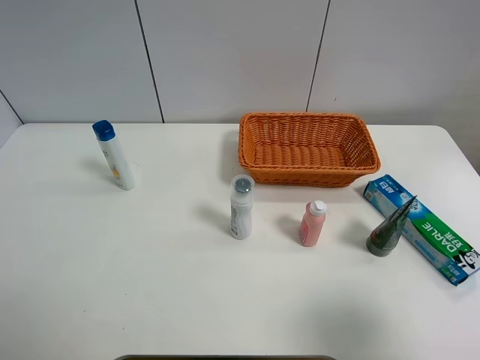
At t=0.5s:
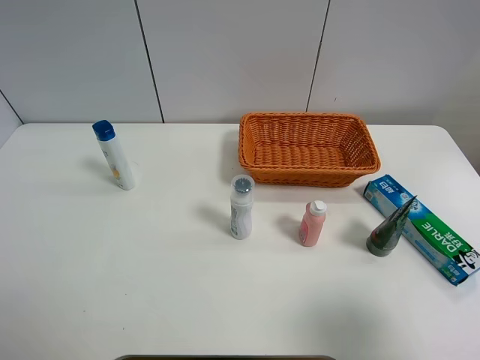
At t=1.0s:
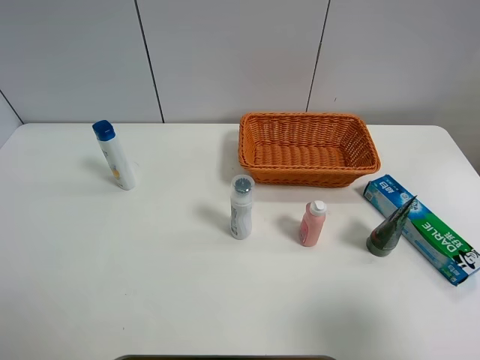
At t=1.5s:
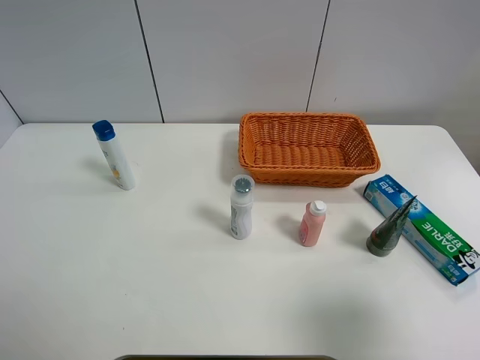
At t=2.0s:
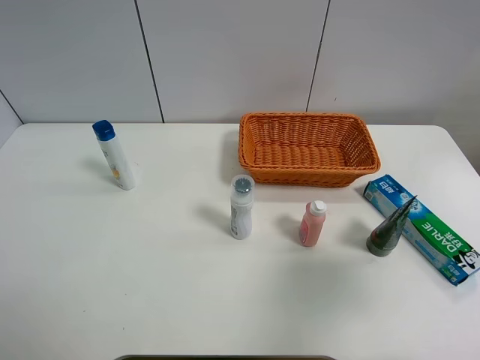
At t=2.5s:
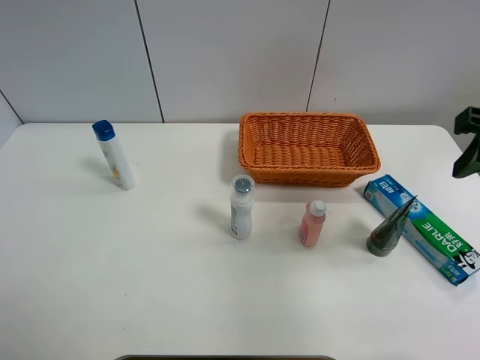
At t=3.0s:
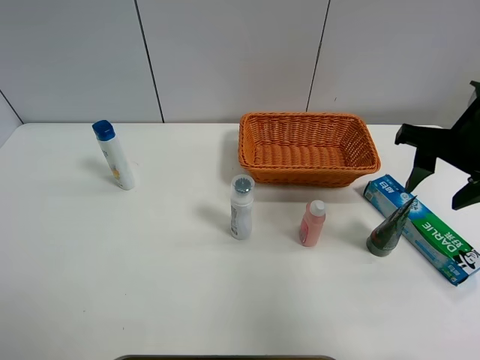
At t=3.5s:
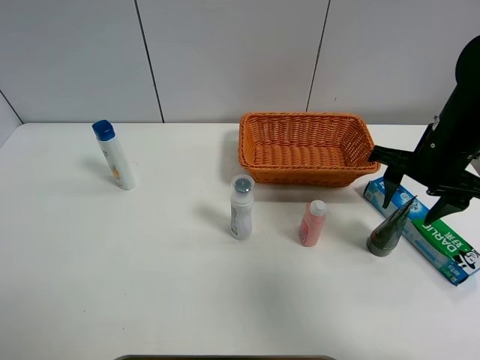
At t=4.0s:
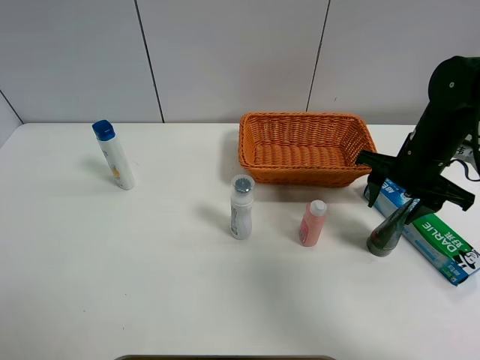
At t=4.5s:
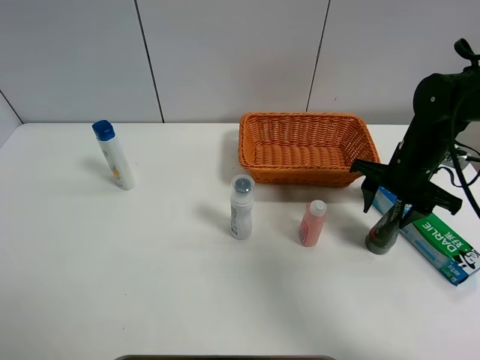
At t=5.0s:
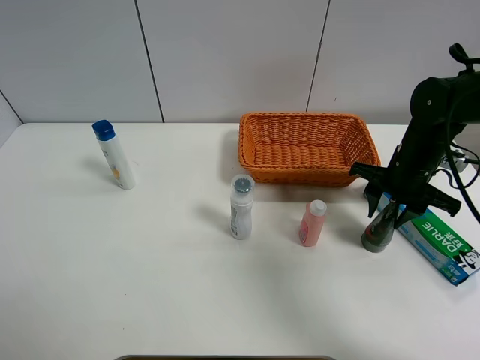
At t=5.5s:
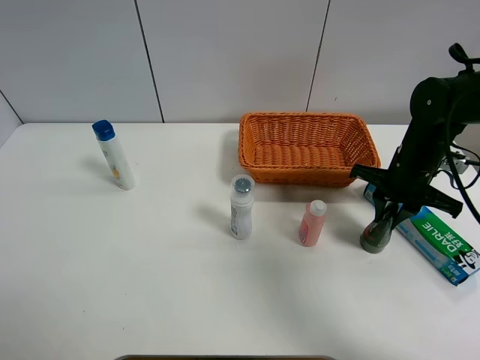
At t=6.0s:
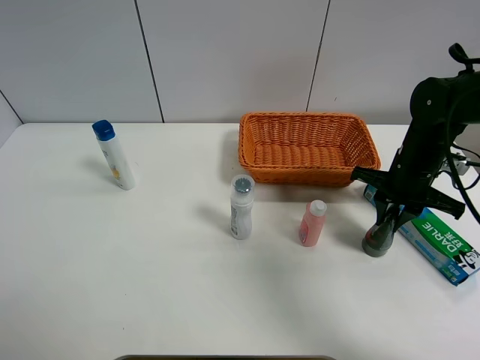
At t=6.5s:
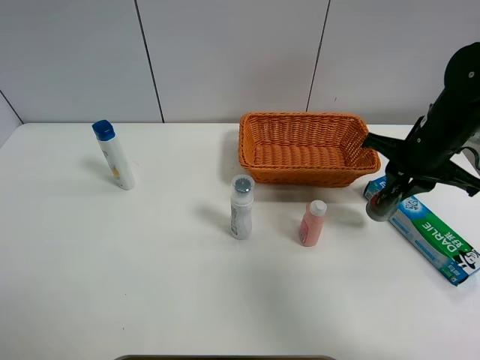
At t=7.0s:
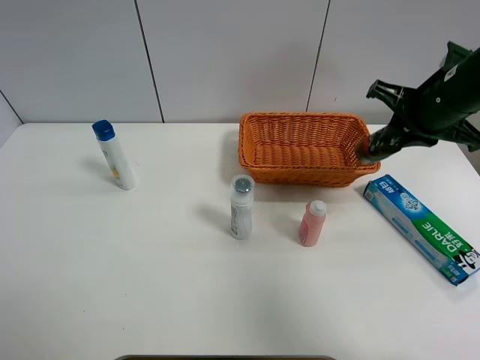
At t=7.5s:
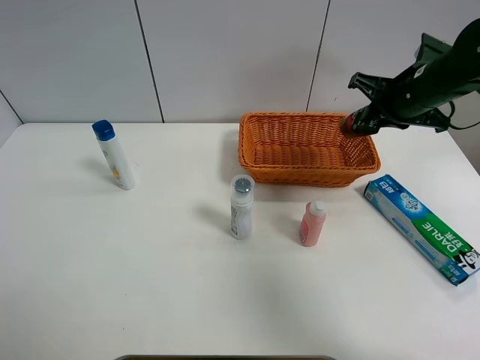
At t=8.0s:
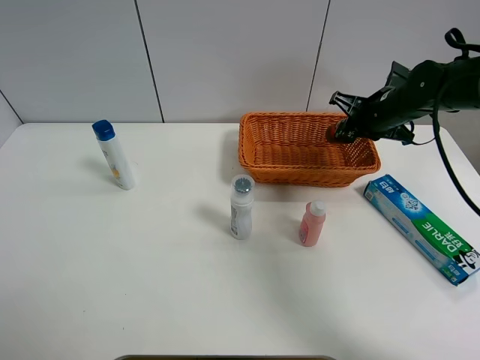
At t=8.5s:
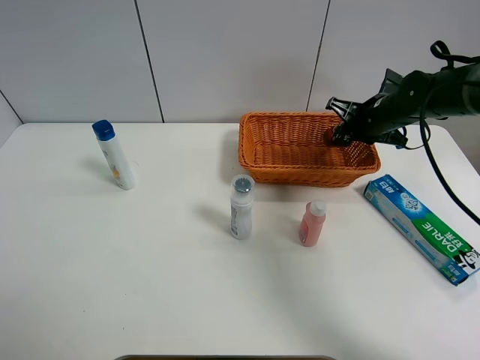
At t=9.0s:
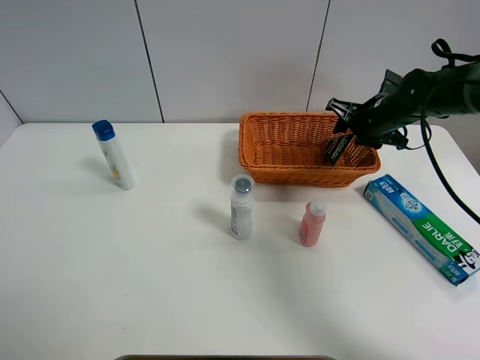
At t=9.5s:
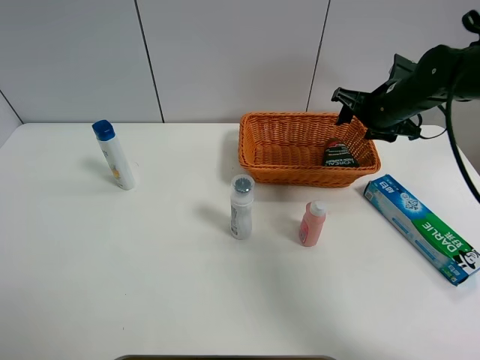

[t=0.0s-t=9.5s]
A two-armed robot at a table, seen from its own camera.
Task of the whole recording: Place the object closest to the toothpaste in the basket.
Step, t=0.0s to t=5.5s: Grasp the soft facial cleanser with right gripper.
t=0.0s to t=2.0s: The right gripper heads forward and upward, covering roughly 10 cm.
t=2.0s to t=4.0s: The right gripper shifts roughly 25 cm forward and downward.
t=4.0s to t=5.5s: The right gripper closes.
t=5.5s to t=7.5s: The right gripper shifts roughly 10 cm upward.
t=7.5s to t=9.5s: The right gripper opens.

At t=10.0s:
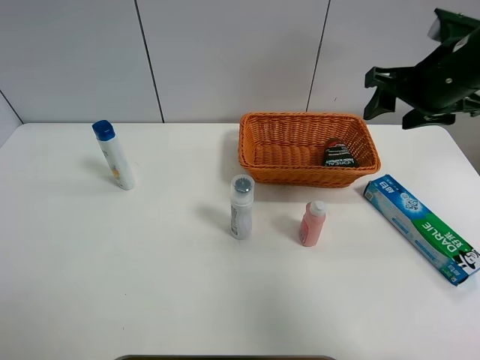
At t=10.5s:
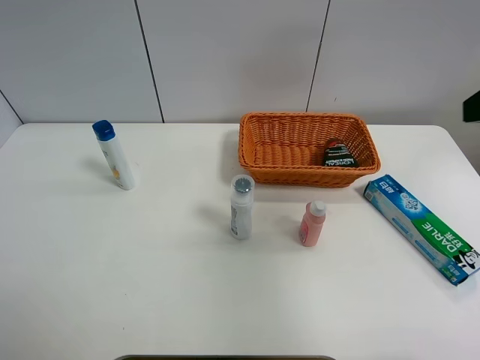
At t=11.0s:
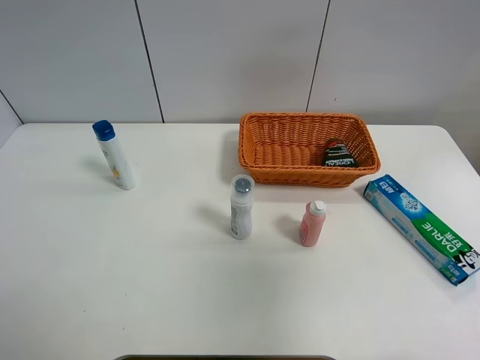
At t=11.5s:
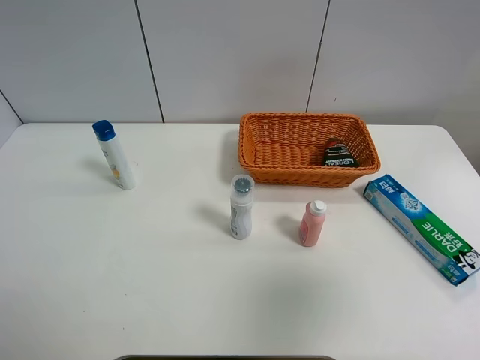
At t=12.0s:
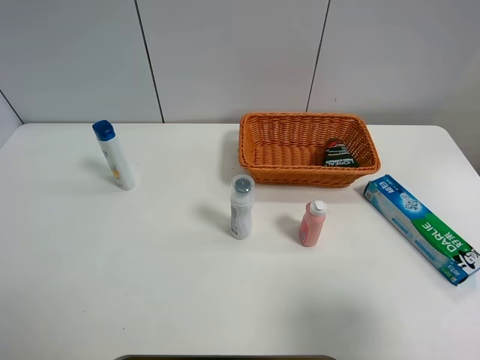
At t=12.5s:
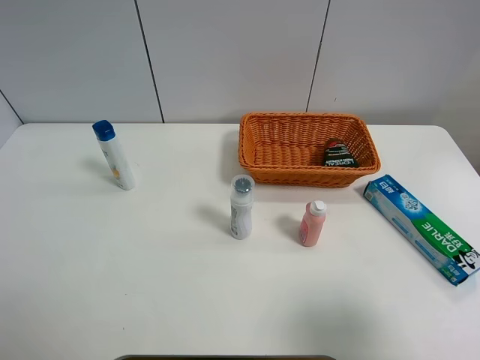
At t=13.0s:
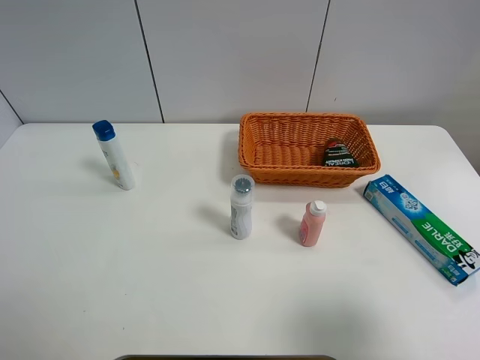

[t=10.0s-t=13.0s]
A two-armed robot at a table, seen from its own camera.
Task of the whole recording: Place the object closest to the toothpaste in the basket.
t=10.0s to t=11.5s: The right gripper travels backward by some 30 cm.
t=11.5s to t=13.0s: The right gripper shifts roughly 10 cm downward.
